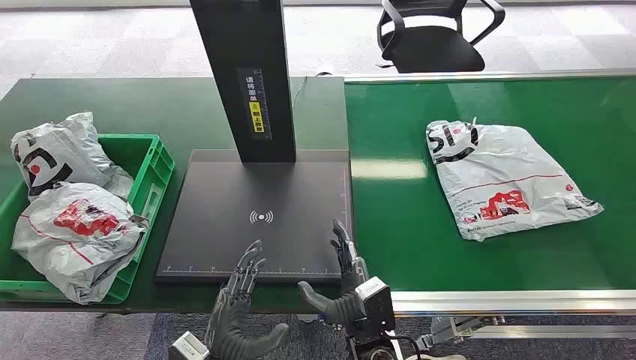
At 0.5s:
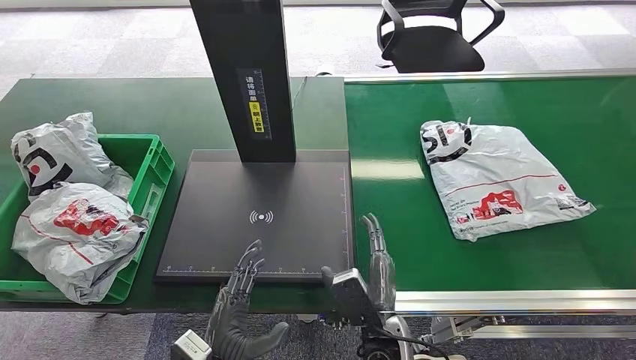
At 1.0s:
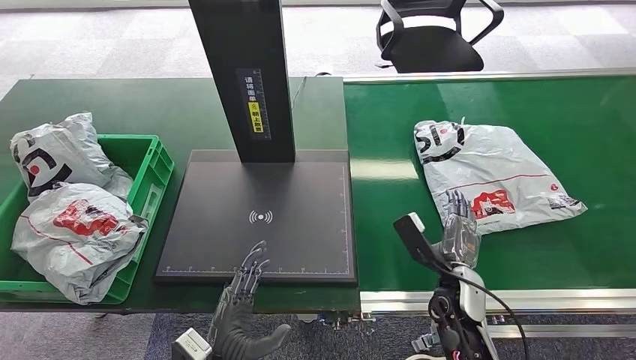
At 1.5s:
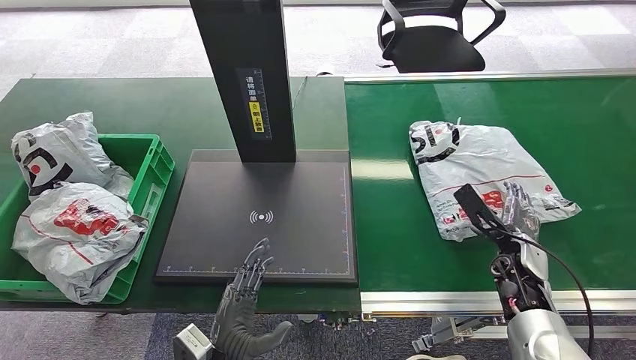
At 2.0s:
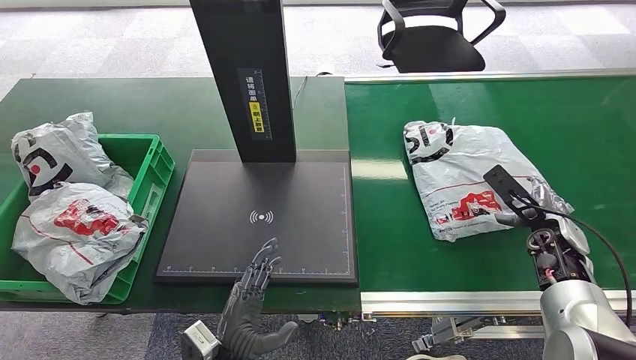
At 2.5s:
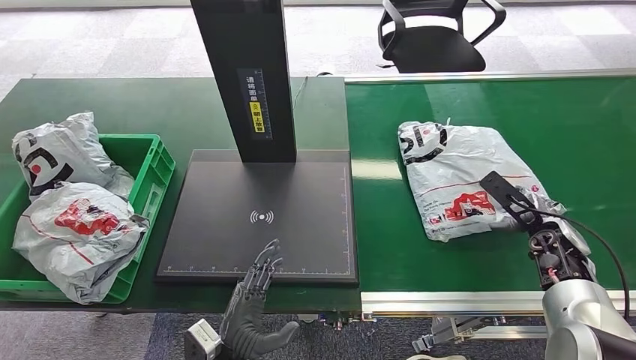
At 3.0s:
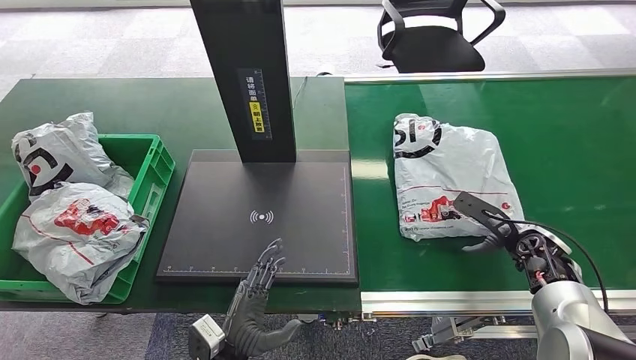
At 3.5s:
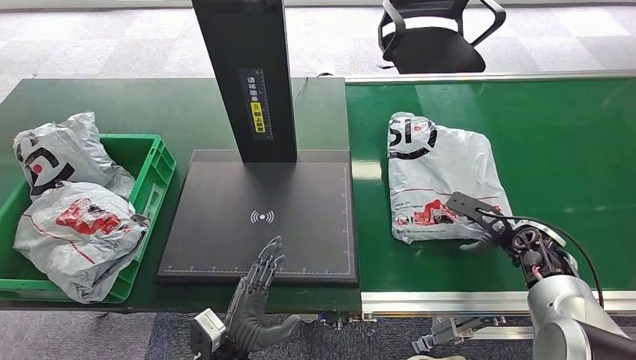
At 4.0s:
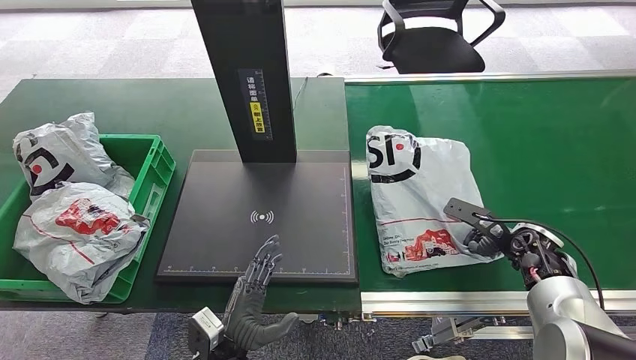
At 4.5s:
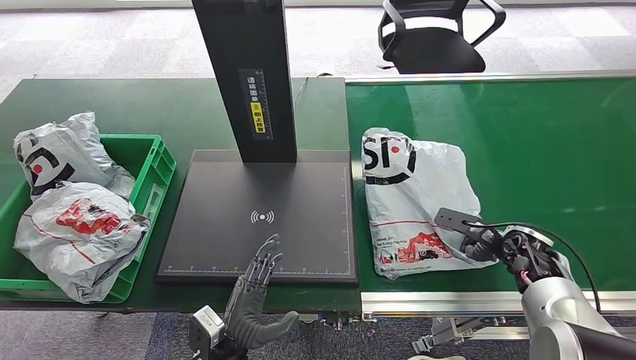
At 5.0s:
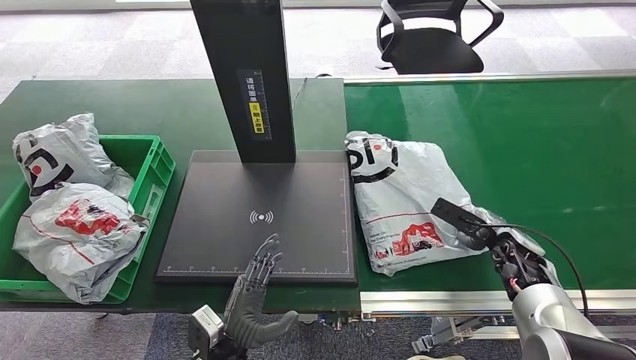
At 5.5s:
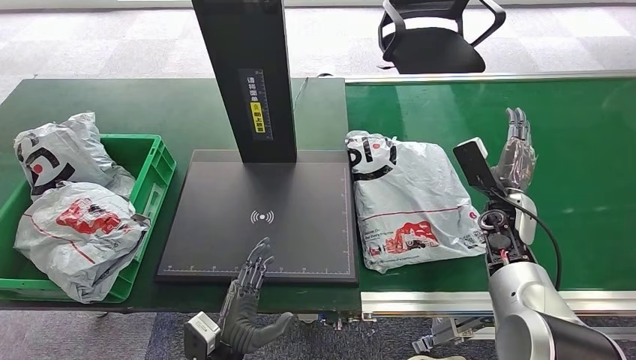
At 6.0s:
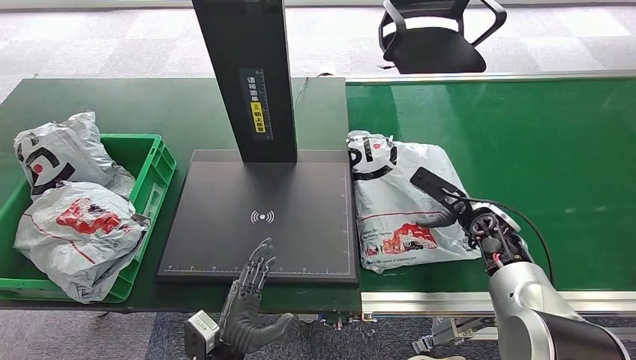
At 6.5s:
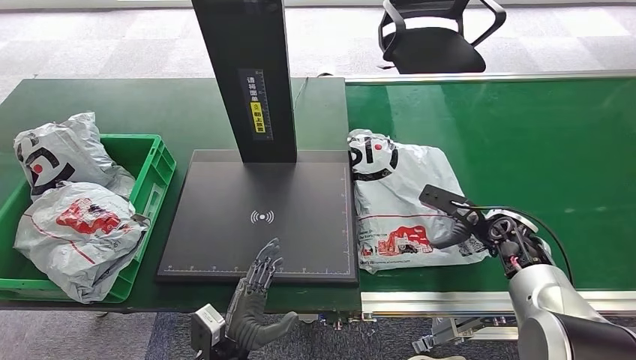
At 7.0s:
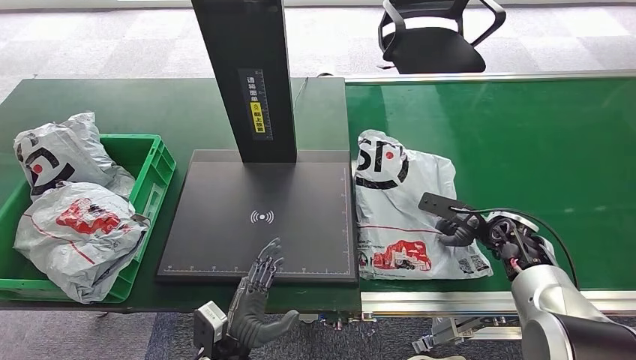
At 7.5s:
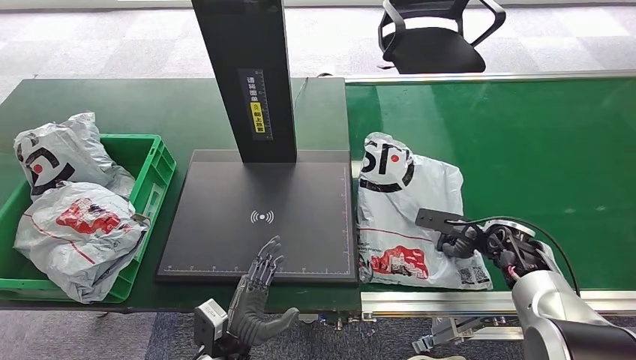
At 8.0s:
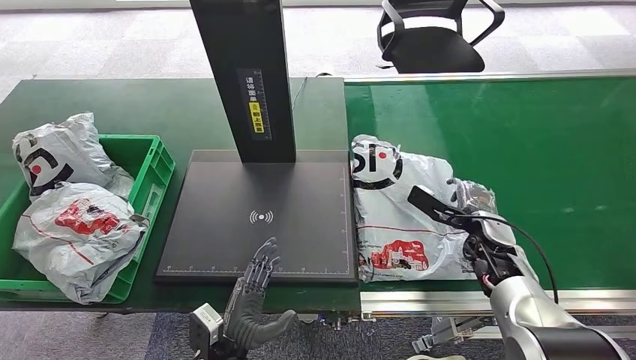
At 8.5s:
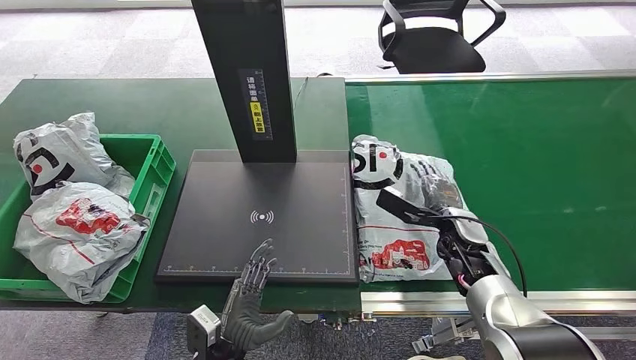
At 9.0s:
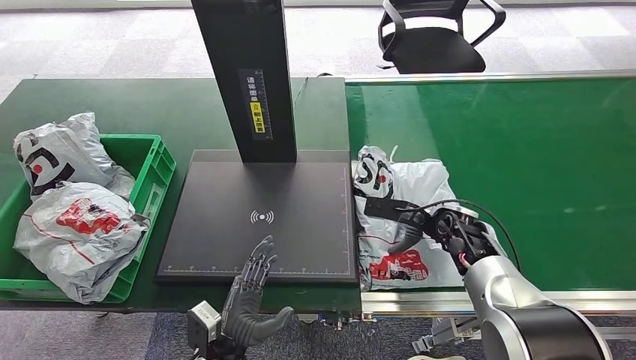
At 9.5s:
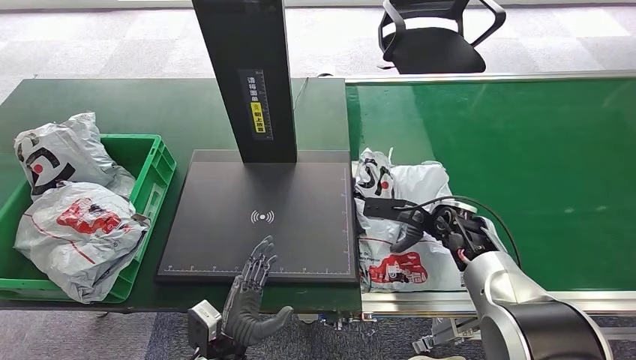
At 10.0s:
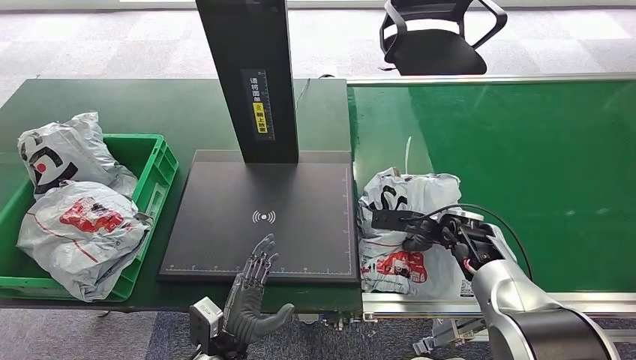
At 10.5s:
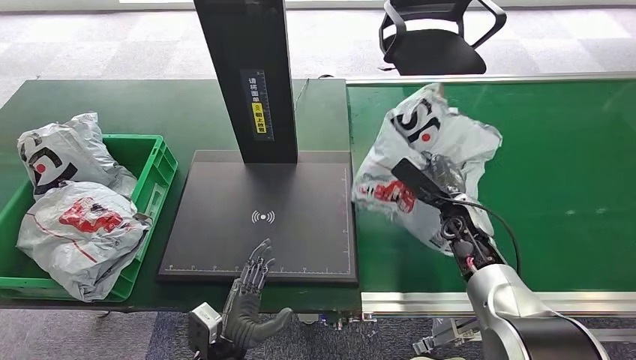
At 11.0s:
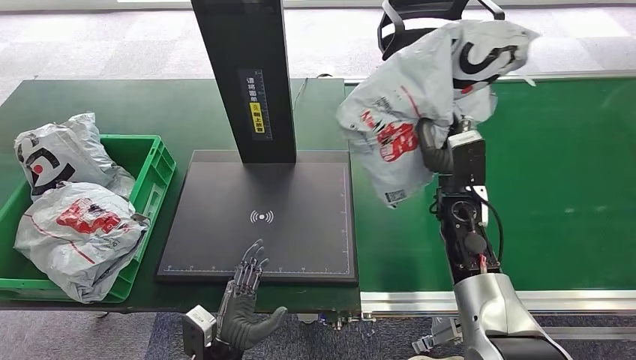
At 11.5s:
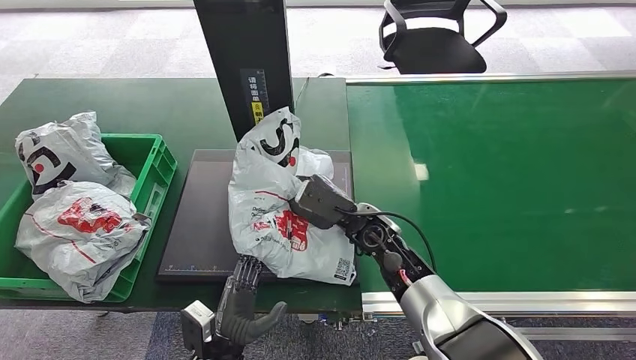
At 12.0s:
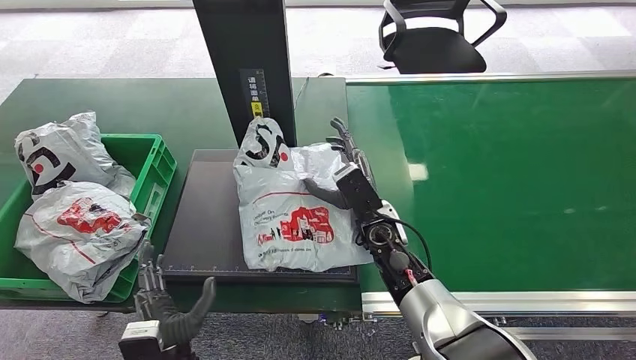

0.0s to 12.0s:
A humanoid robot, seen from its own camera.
Step, 0.0s to 10.5s: Pick up the package from the conveyor belt.
4.0s to 6.0s: The right hand goes approximately 10 cm to the left.

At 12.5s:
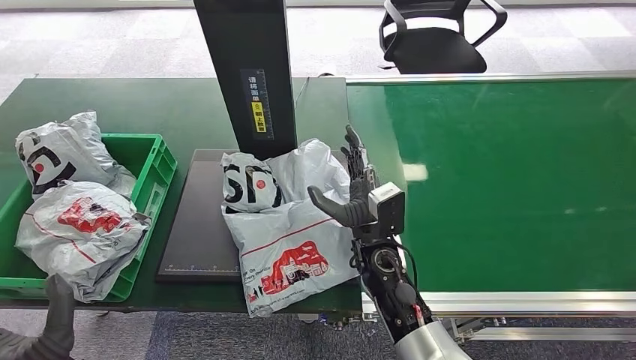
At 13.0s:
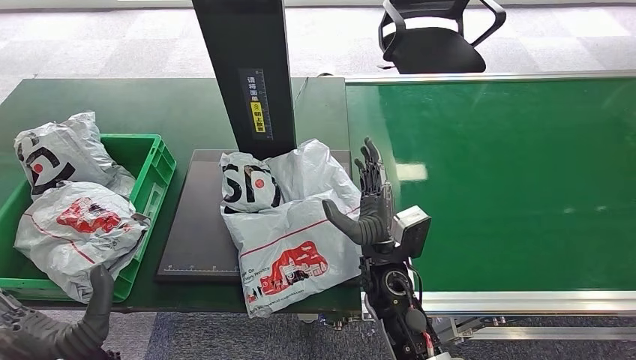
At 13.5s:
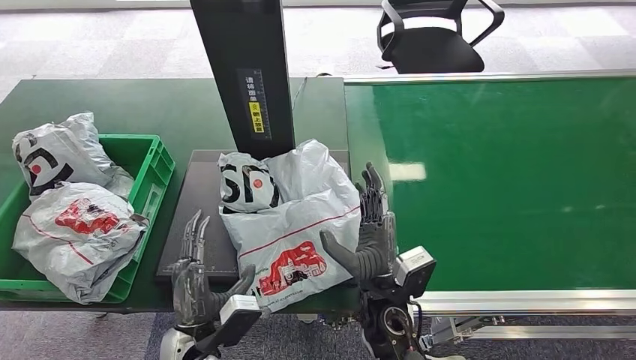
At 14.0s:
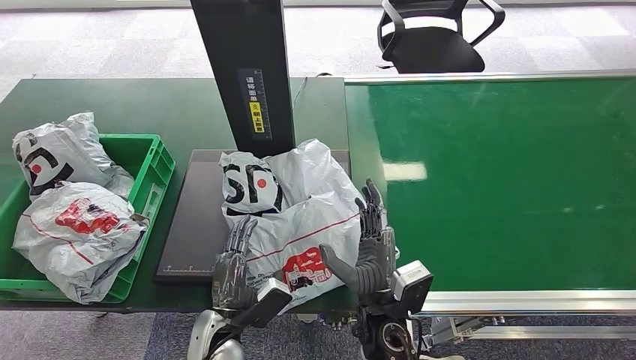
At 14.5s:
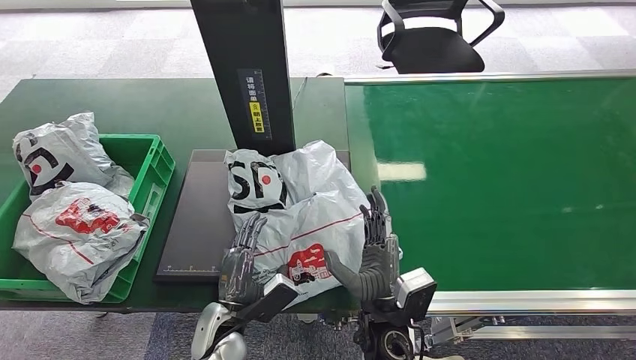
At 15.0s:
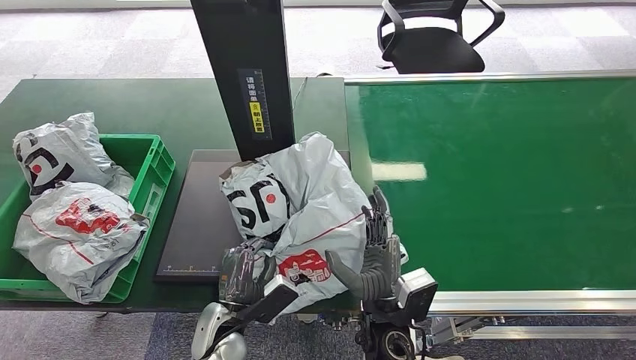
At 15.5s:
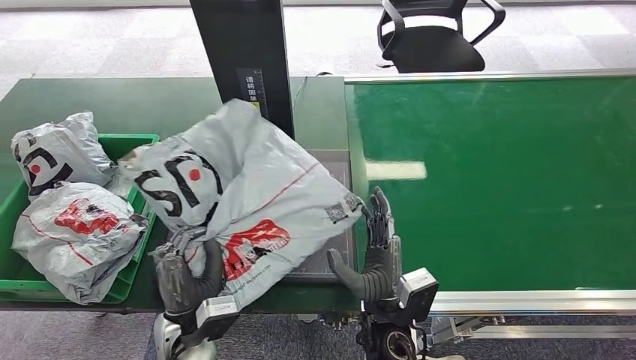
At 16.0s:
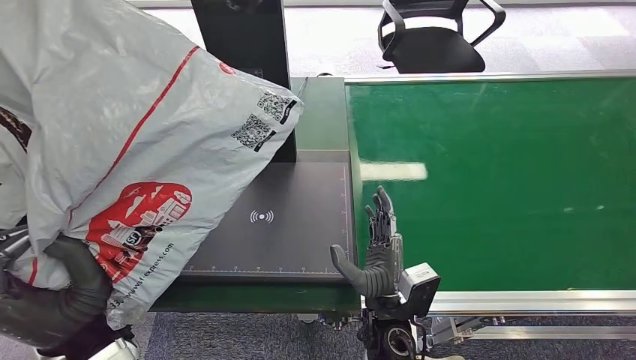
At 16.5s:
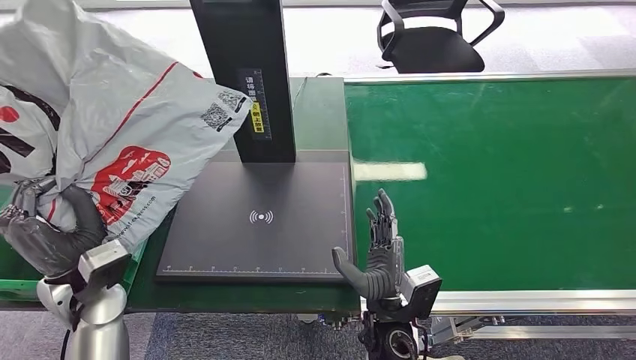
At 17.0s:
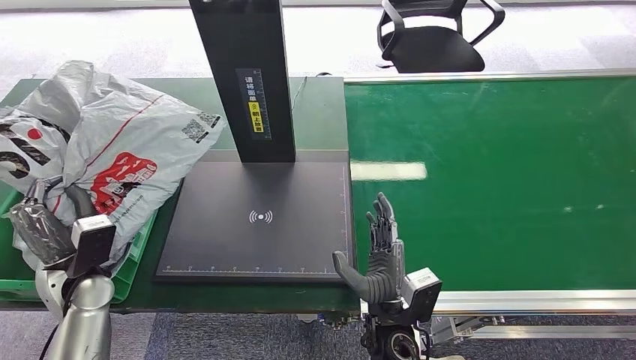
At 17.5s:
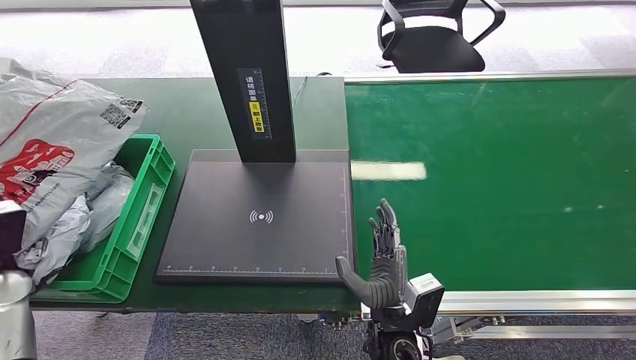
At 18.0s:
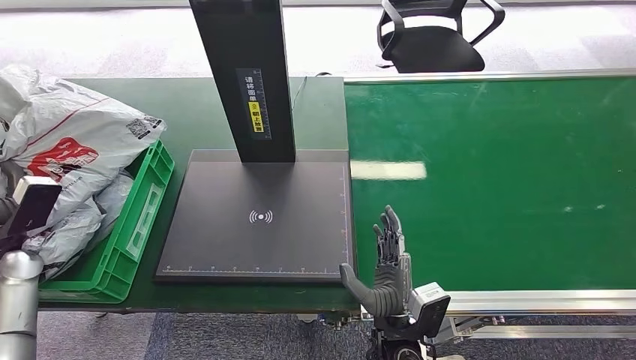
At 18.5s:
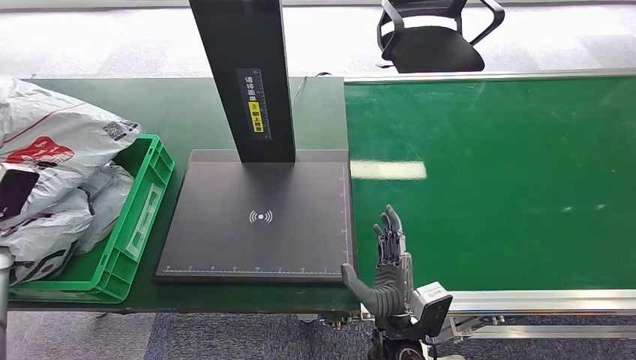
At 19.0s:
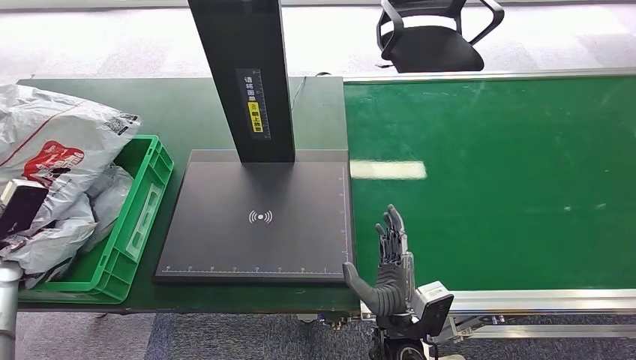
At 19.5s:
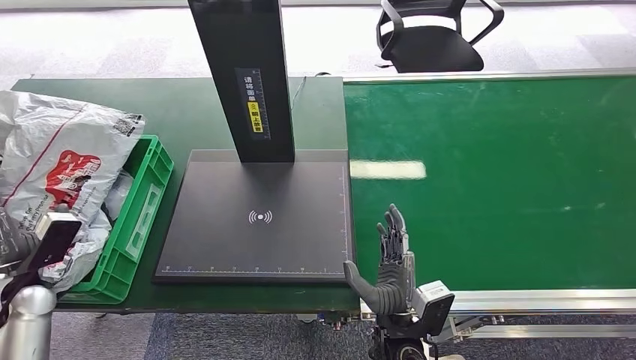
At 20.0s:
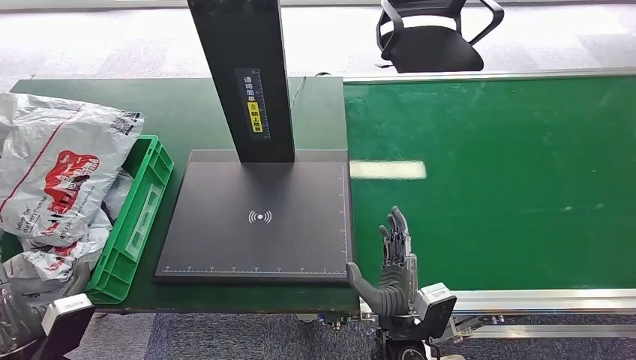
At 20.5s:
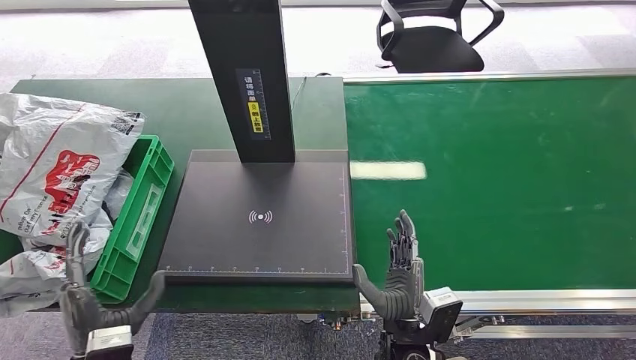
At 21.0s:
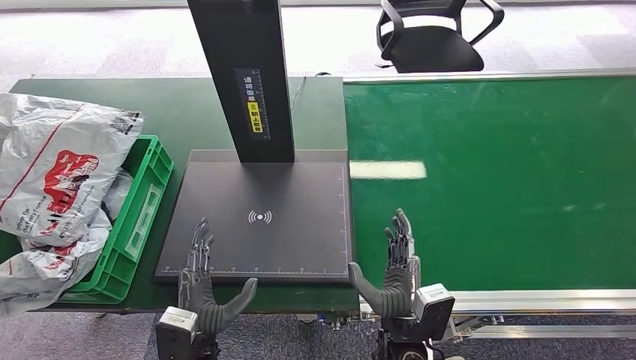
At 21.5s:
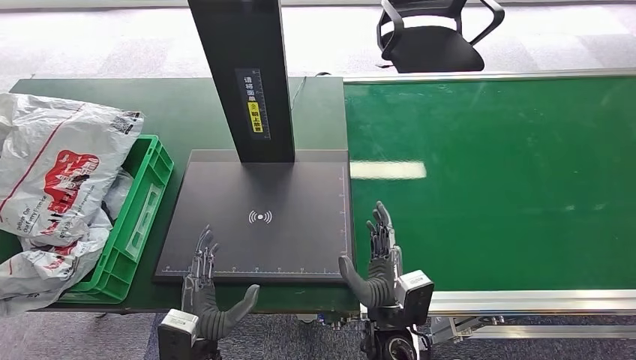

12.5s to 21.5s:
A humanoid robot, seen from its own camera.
Step, 13.5s to 16.0s: Pick up the package from the inbound machine.
Step, 16.5s to 21.5s: Place the package into the parcel locker.
17.0s to 19.5s: The left hand shifts some 10 cm to the left.
19.5s to 21.5s: The left hand travels to the right by about 35 cm.
